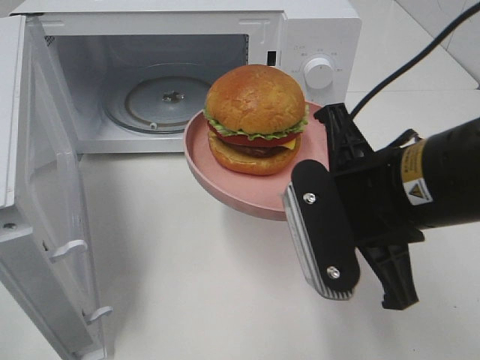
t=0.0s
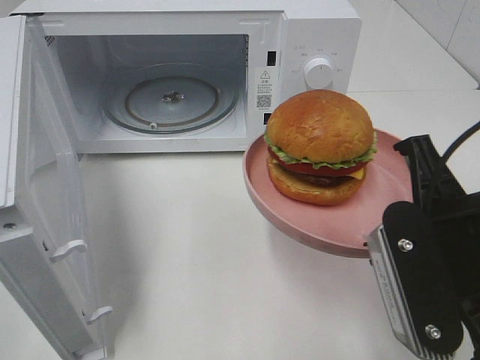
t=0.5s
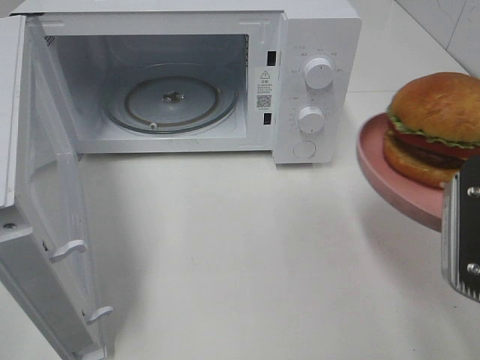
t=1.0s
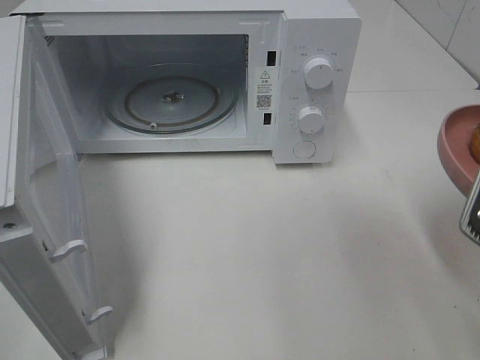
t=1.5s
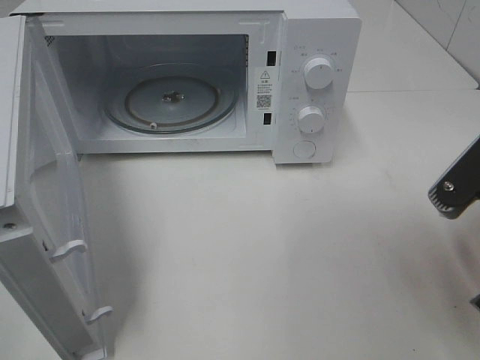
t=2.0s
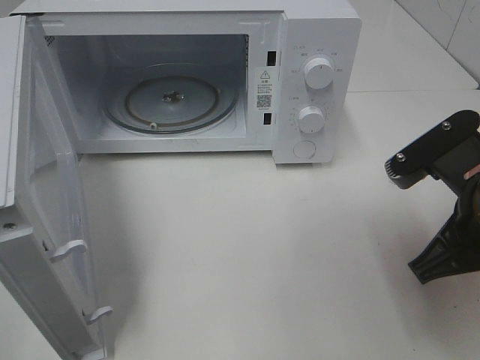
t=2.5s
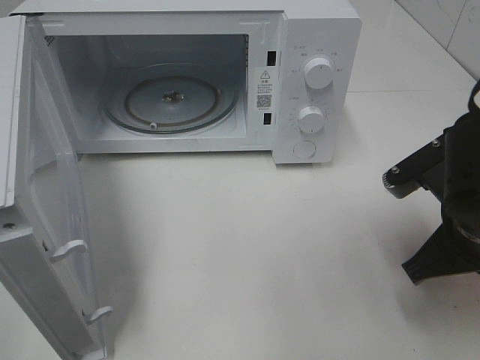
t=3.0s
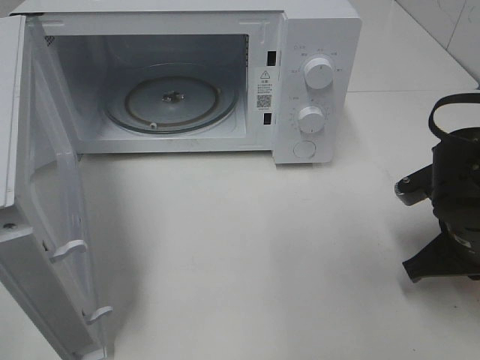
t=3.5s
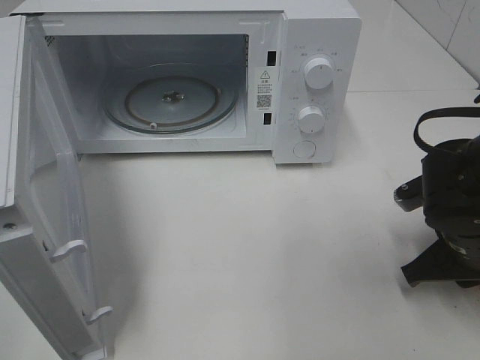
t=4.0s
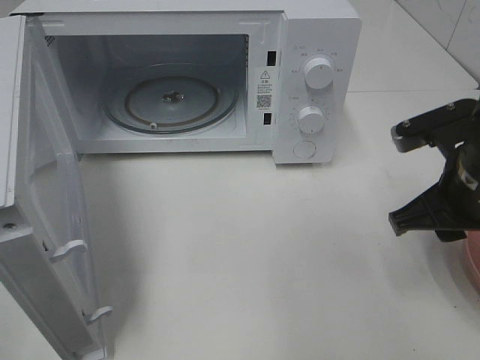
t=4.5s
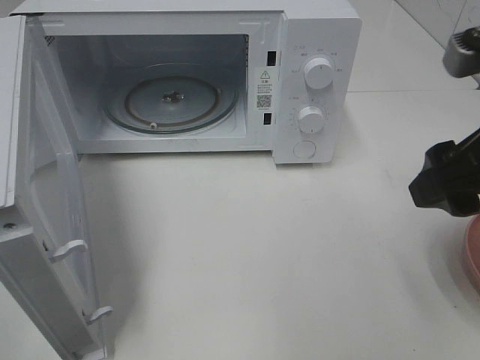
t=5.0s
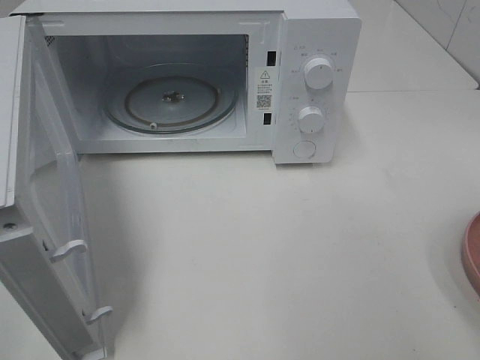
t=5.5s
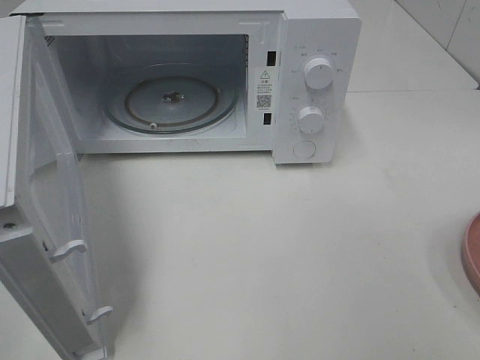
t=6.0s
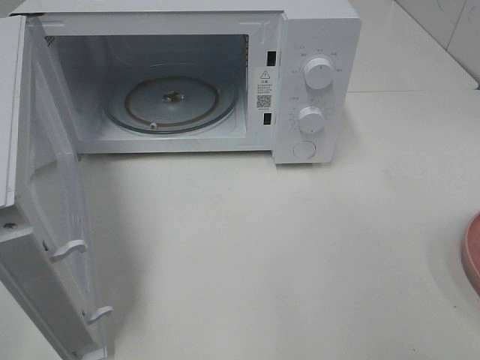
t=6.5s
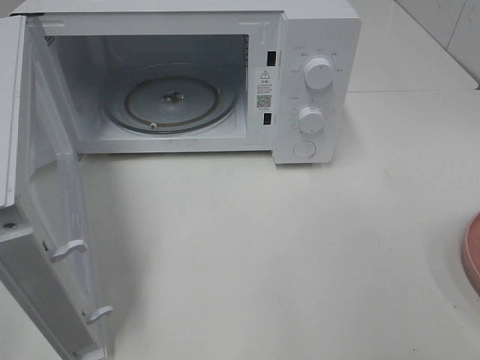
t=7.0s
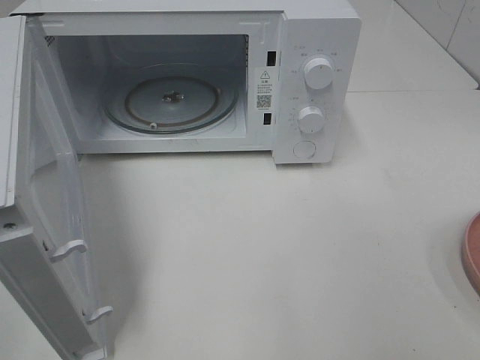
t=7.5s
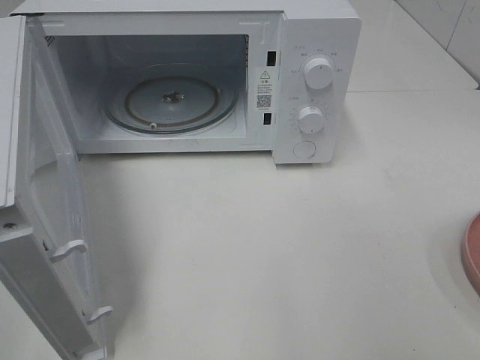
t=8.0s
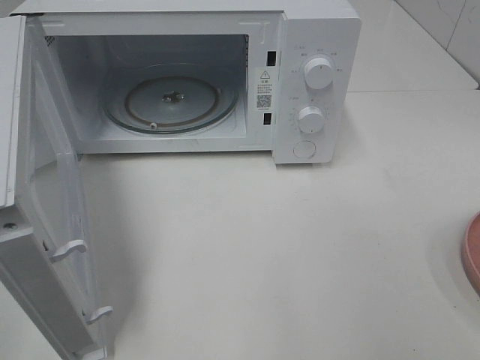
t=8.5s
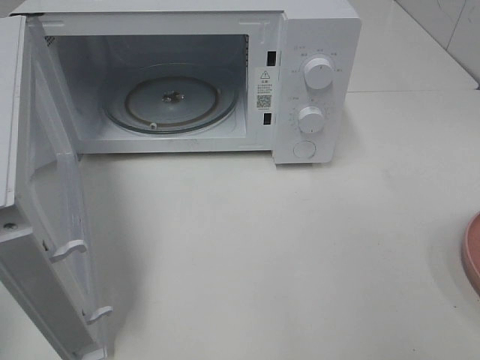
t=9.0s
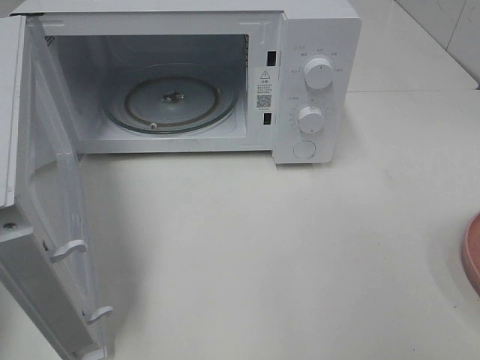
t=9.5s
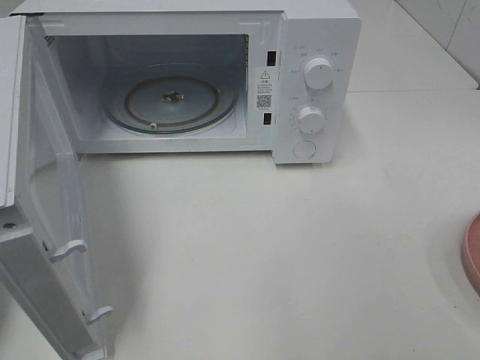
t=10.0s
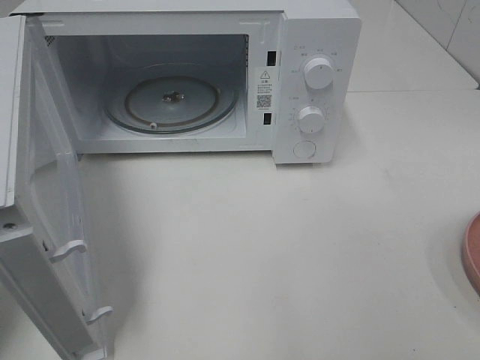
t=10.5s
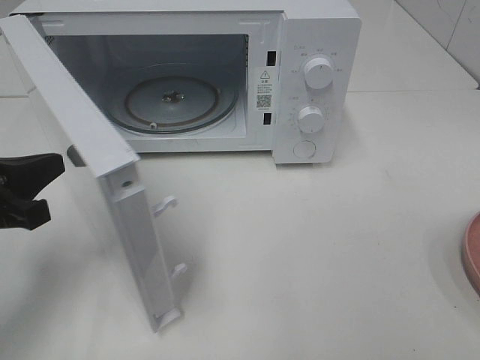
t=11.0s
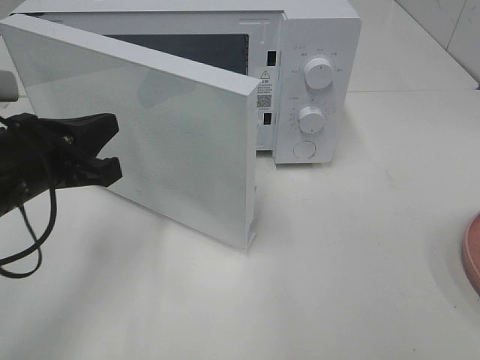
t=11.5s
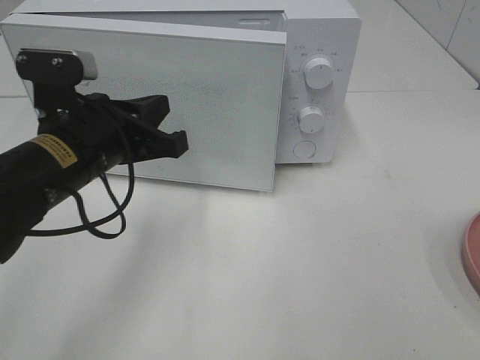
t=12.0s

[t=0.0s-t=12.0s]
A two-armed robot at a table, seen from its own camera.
Task of the whole recording: Heat the burger.
Step, t=0.0s to t=4.0s: Right hand: place the plate on the table.
t=0.0s to t=2.0s: The right gripper heads to the right, covering approximately 10 cm.
t=2.0s to t=4.0s: The right gripper is displaced downward and forward by about 15 cm.
t=4.0s to t=6.0s: The right gripper is displaced upward and backward by approximately 25 cm, and opens its fingers.
t=10.0s to t=12.0s: The left gripper moves to the right and forward, roughly 20 cm.

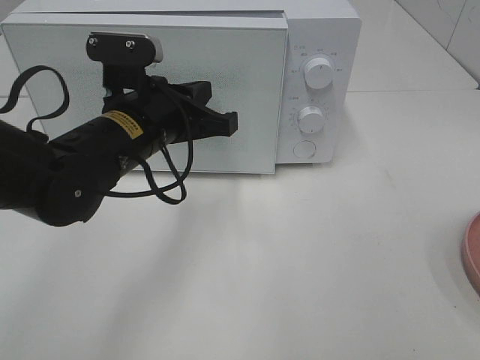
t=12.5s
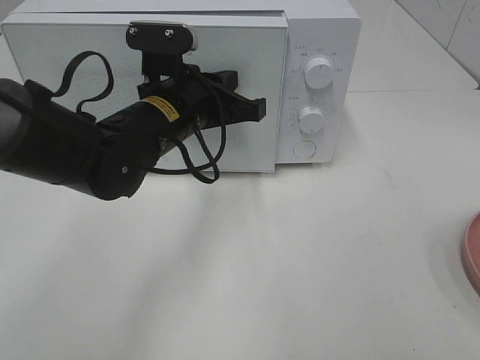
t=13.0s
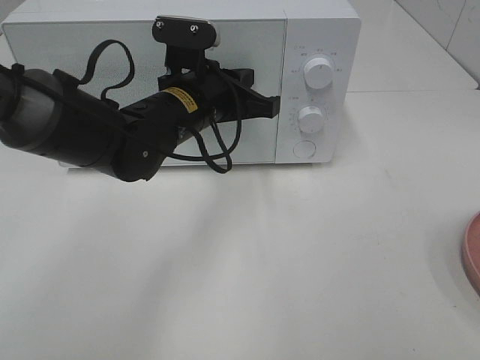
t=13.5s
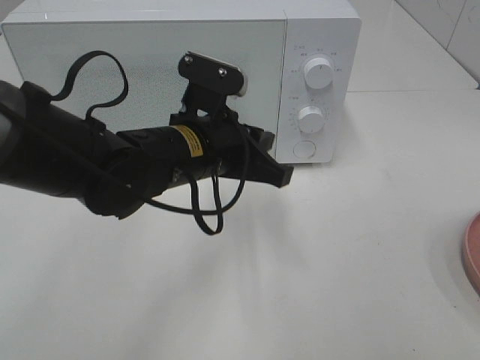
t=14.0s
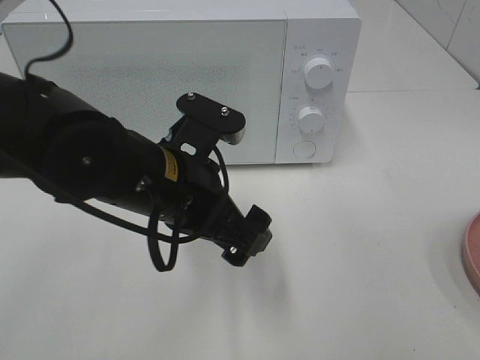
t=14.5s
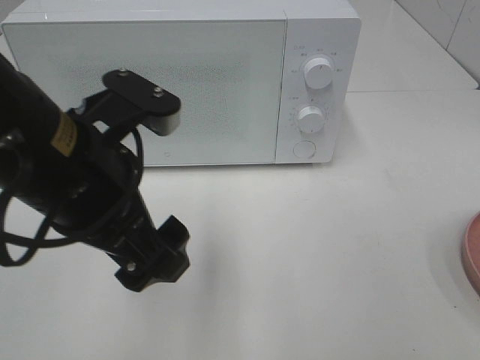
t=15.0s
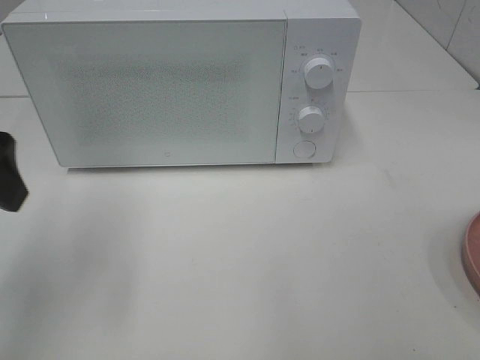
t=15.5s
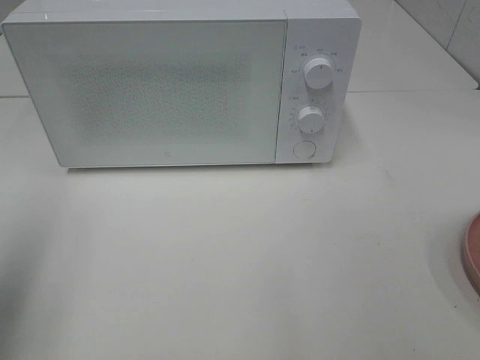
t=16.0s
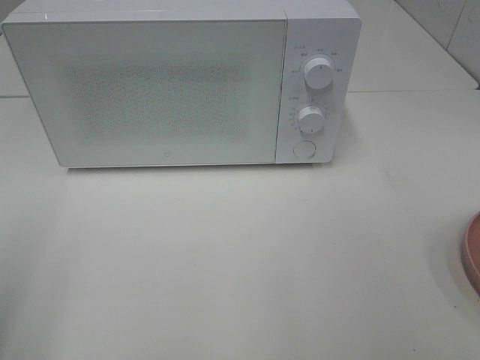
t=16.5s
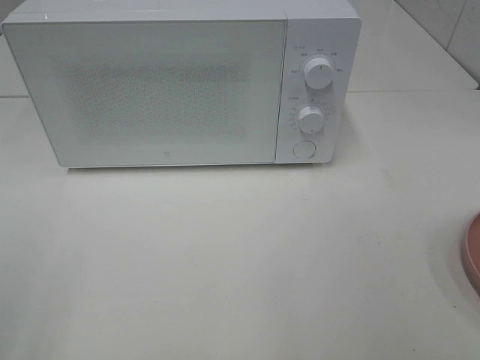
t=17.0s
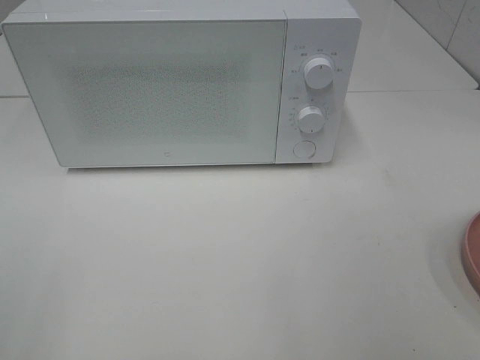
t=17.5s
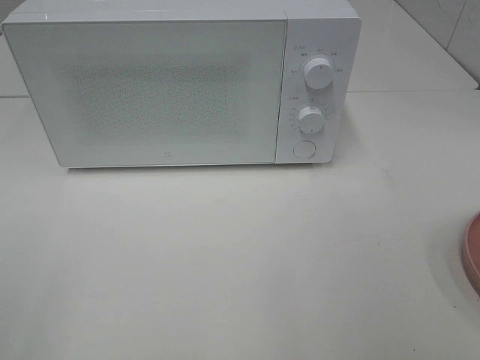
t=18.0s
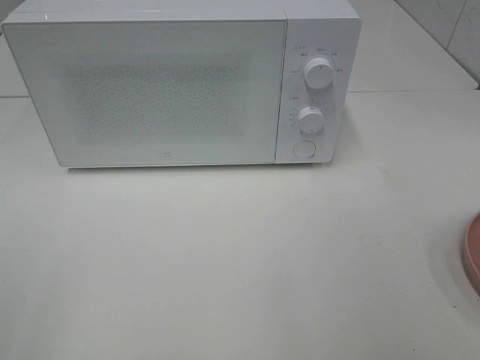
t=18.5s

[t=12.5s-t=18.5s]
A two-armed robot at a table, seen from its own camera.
Task of the whole recording: Heat the burger.
t=12.5s to t=14.5s: The left gripper goes about 5 cm backward, and opens up.
t=14.5s to t=16.5s: The left gripper travels to the left and backward by approximately 30 cm.

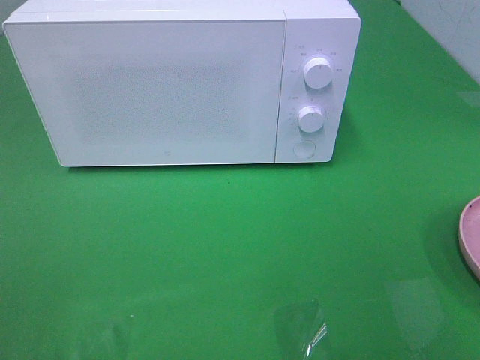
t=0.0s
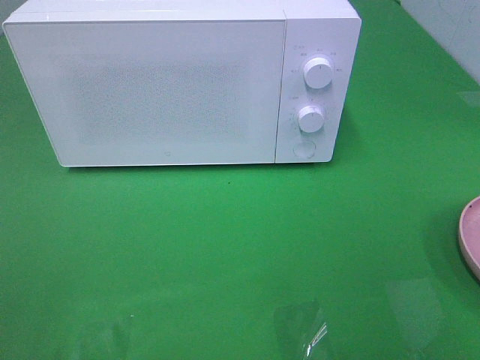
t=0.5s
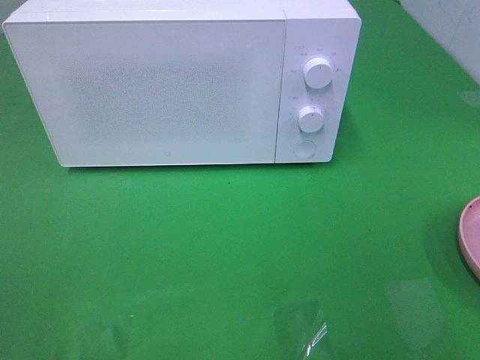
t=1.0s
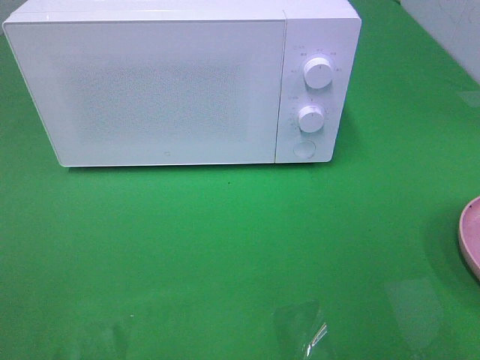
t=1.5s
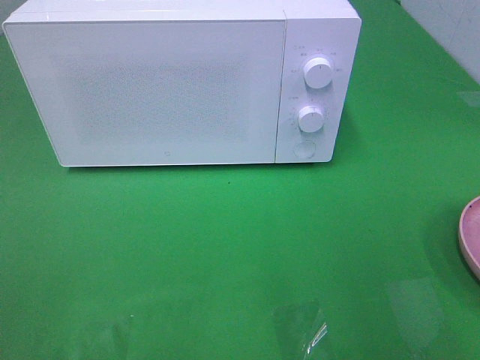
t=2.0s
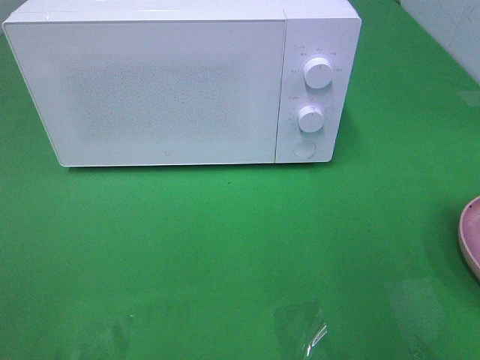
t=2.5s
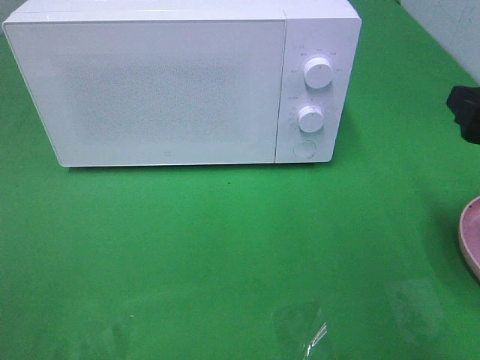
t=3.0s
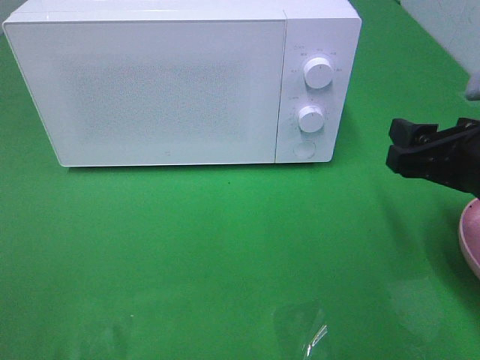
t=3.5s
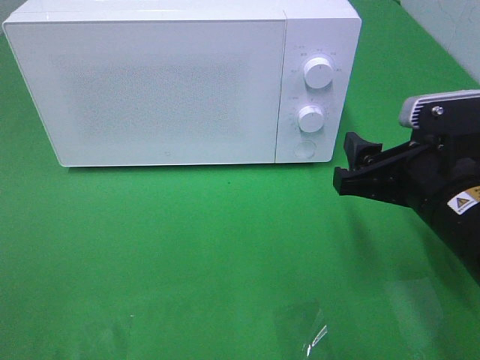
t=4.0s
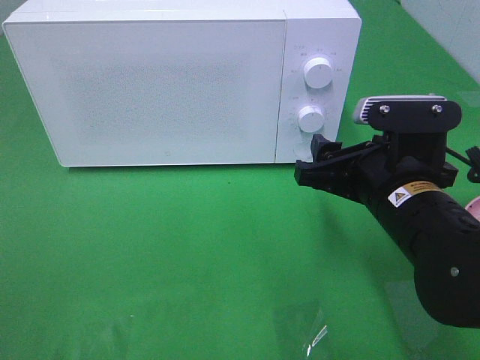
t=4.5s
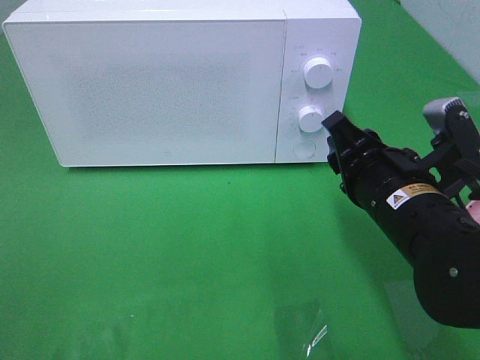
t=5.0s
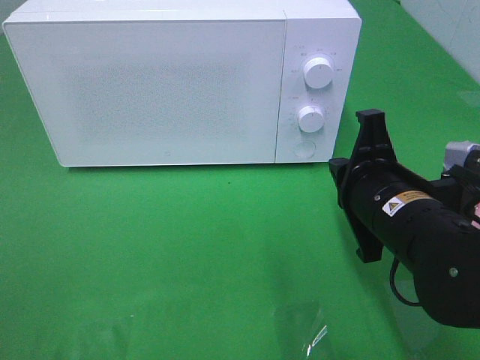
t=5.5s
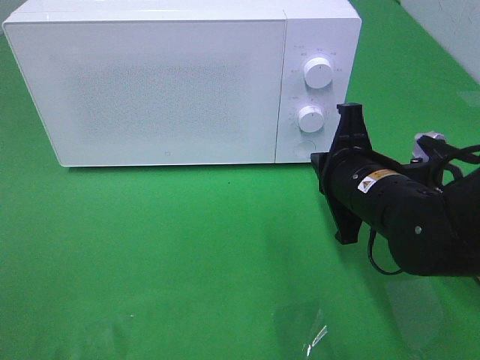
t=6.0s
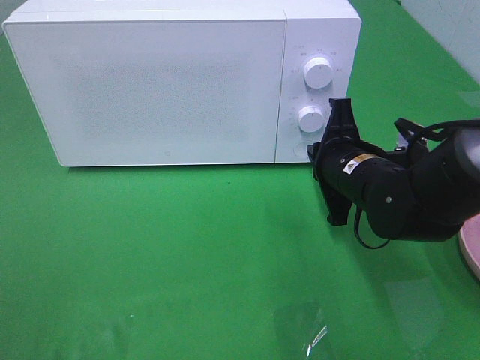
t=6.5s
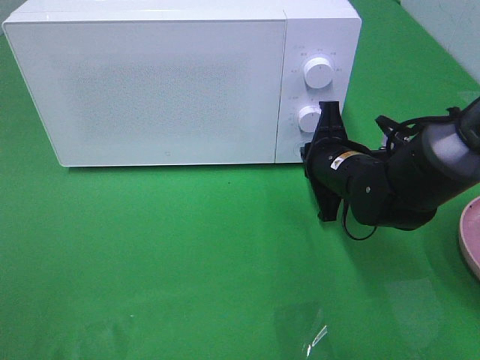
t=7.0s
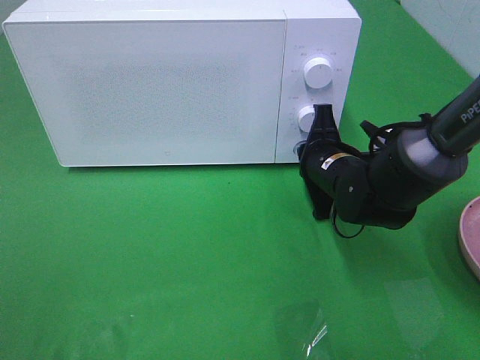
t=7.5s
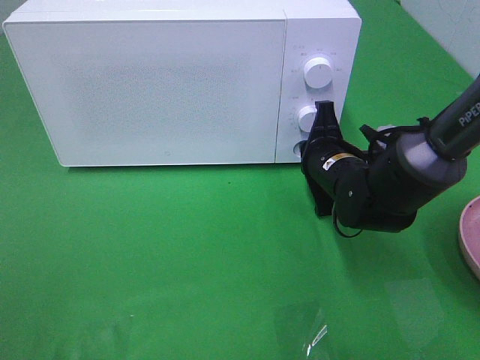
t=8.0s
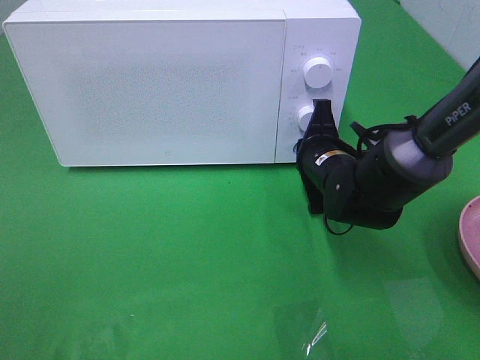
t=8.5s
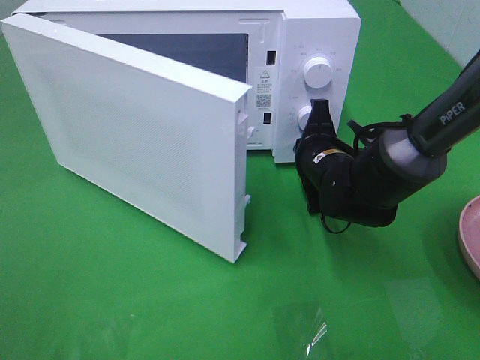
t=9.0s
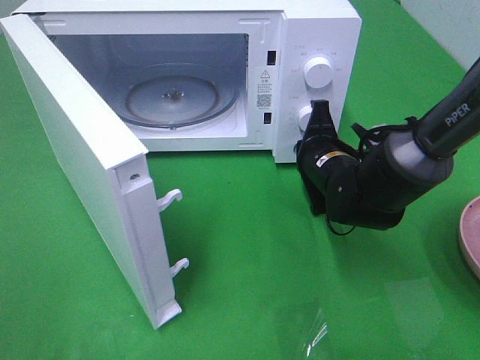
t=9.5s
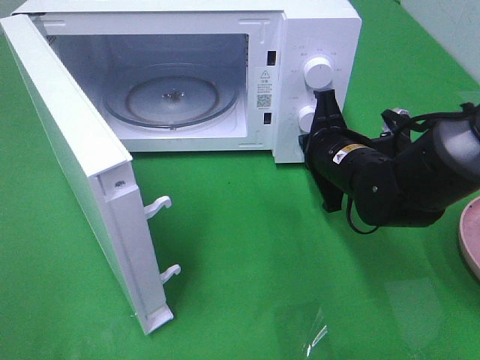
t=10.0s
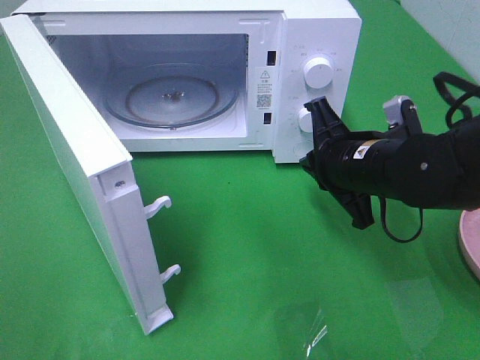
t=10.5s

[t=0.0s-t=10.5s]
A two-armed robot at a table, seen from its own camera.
Task of the whole recording: Heat the burger.
Step, t=0.0s to t=10.0s: Right hand: press the switch.
t=2.0s to t=4.0s: The right gripper moves to the left, downward and forward, roughly 15 cm.
t=4.0s to t=6.5s: The right gripper goes about 10 cm forward and downward, and closes up.
t=6.5s to t=8.5s: The right gripper shifts by about 5 cm.
t=8.5s to t=10.5s: The right gripper shifts approximately 10 cm backward and upward.
